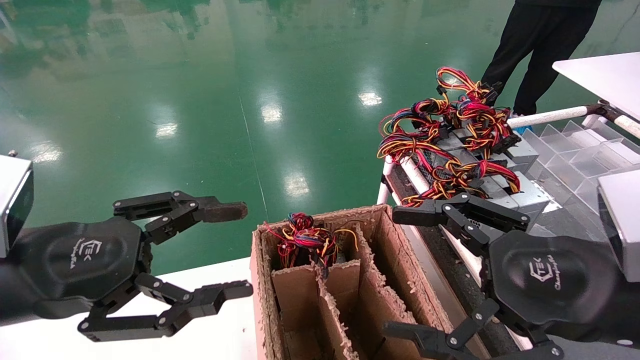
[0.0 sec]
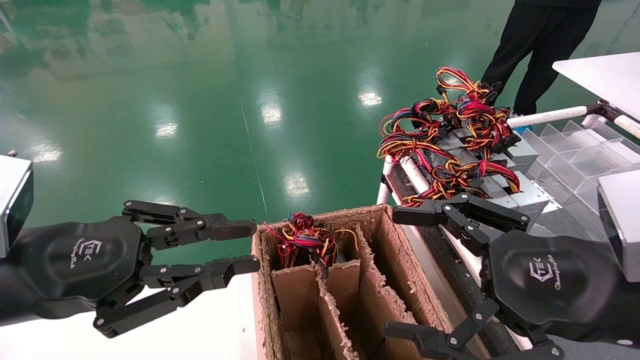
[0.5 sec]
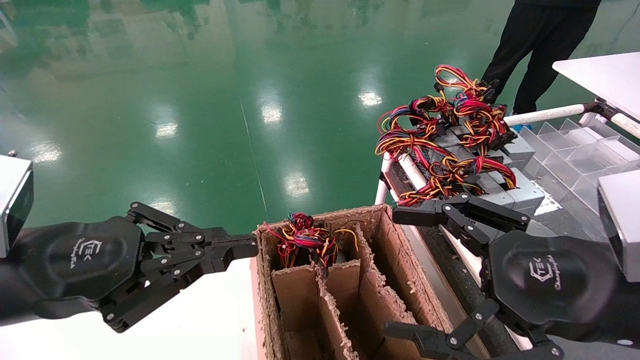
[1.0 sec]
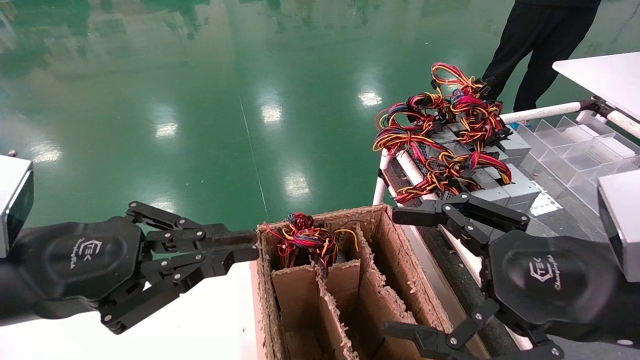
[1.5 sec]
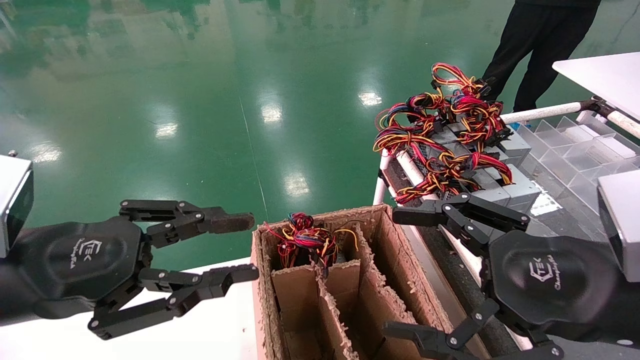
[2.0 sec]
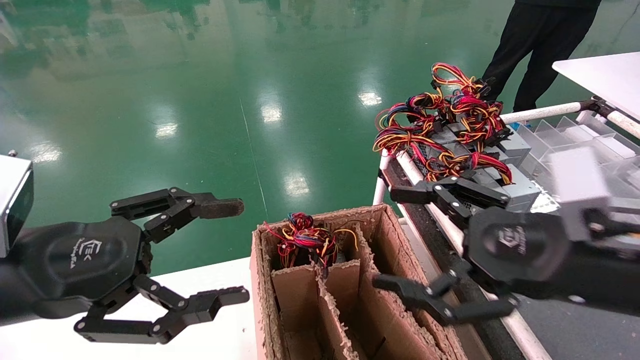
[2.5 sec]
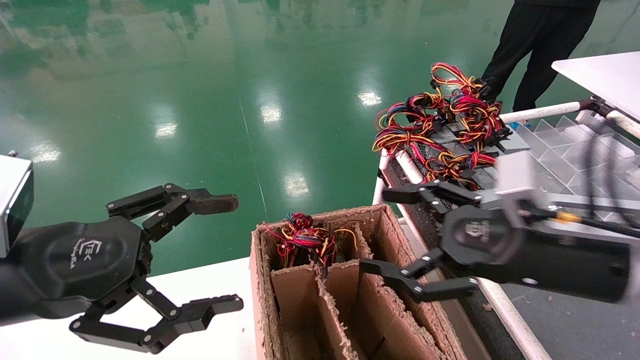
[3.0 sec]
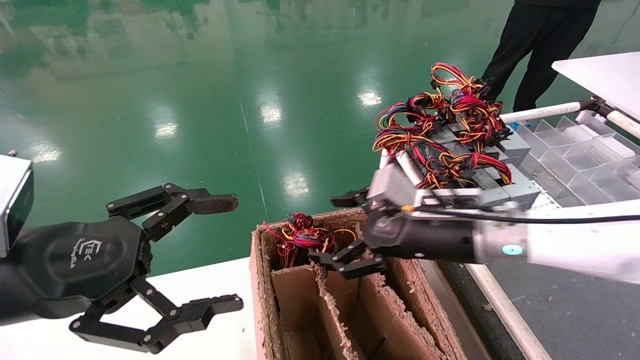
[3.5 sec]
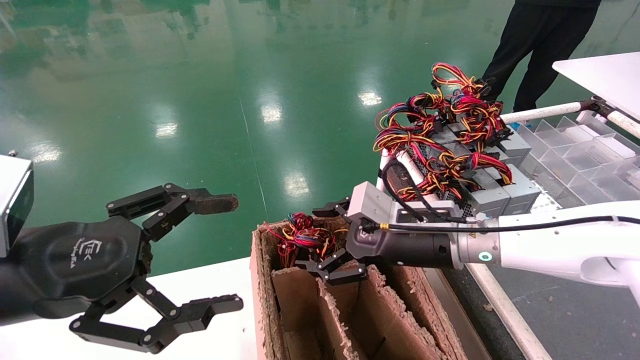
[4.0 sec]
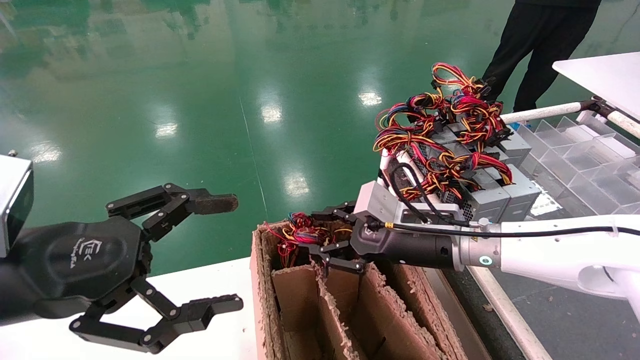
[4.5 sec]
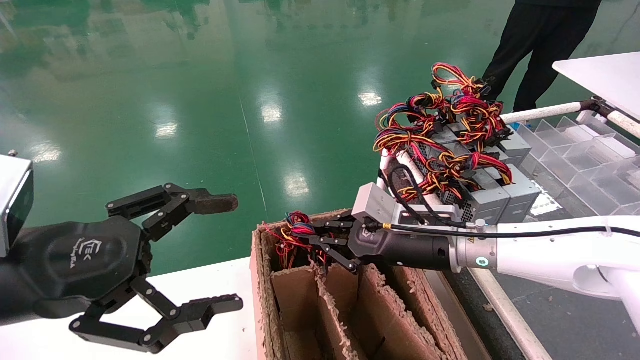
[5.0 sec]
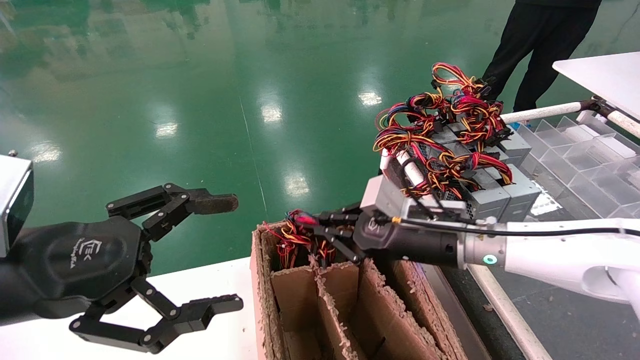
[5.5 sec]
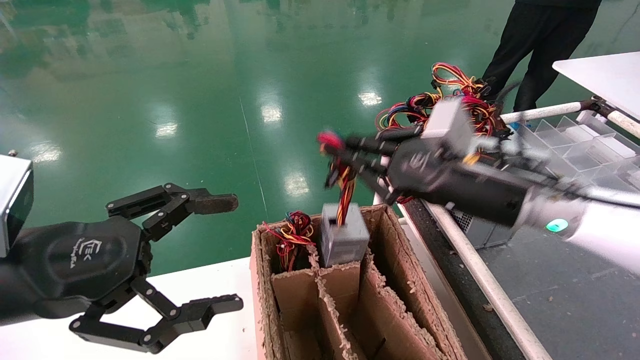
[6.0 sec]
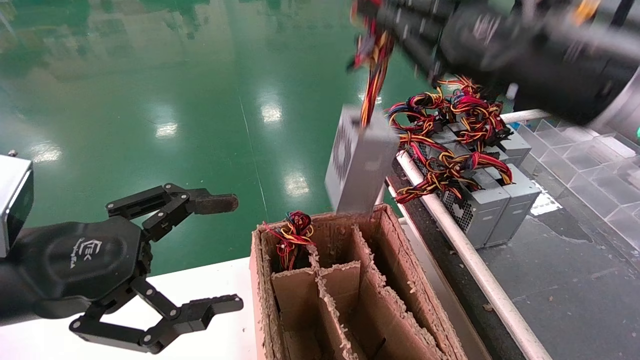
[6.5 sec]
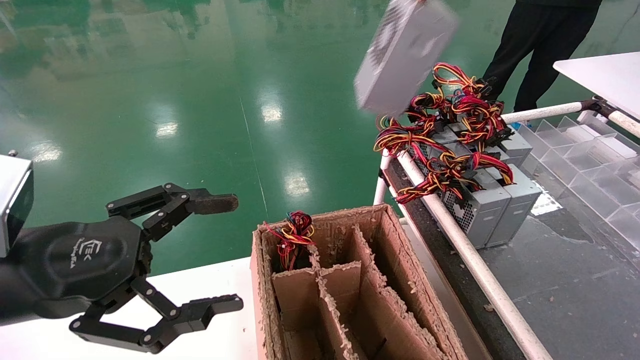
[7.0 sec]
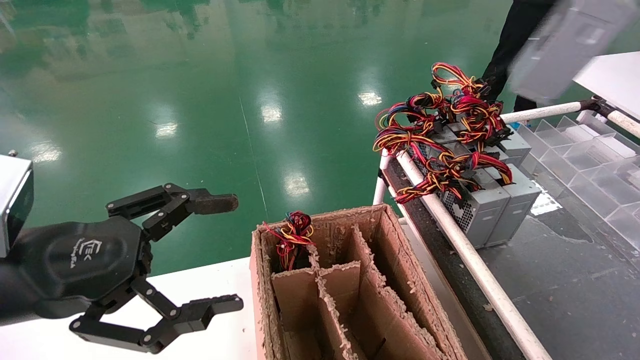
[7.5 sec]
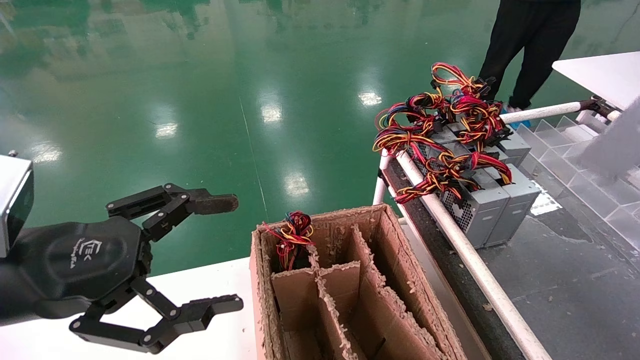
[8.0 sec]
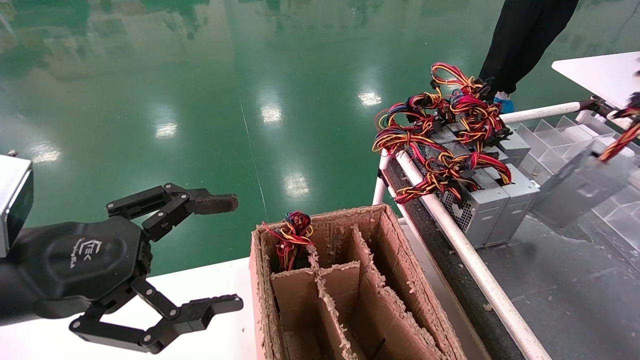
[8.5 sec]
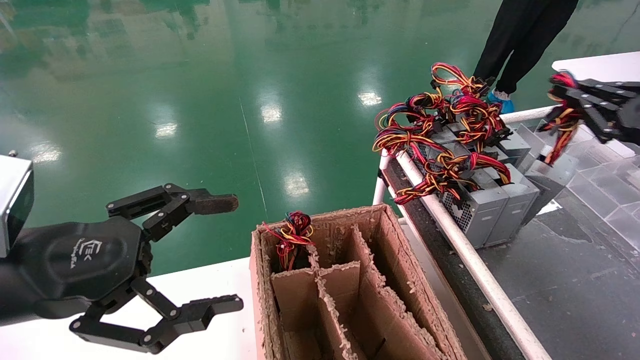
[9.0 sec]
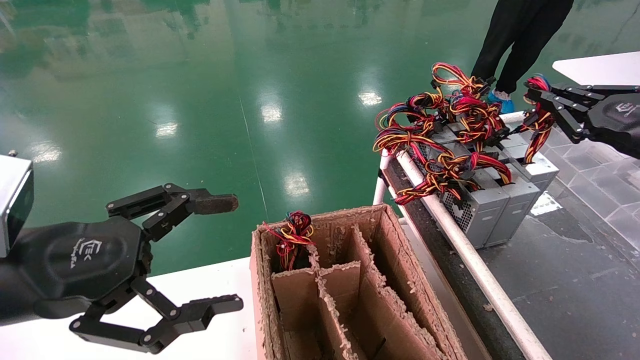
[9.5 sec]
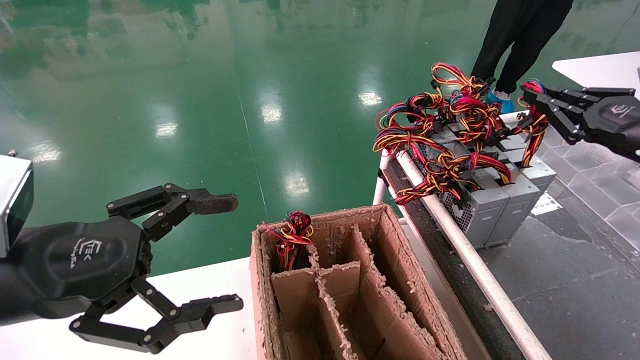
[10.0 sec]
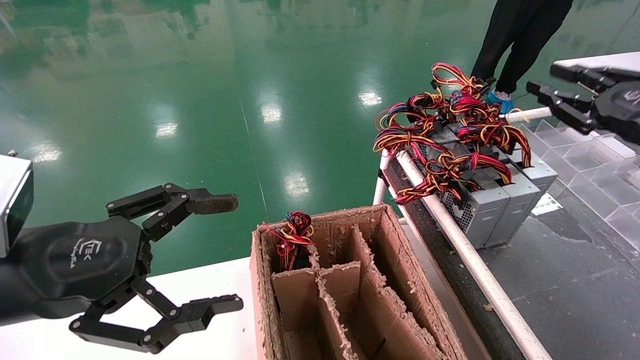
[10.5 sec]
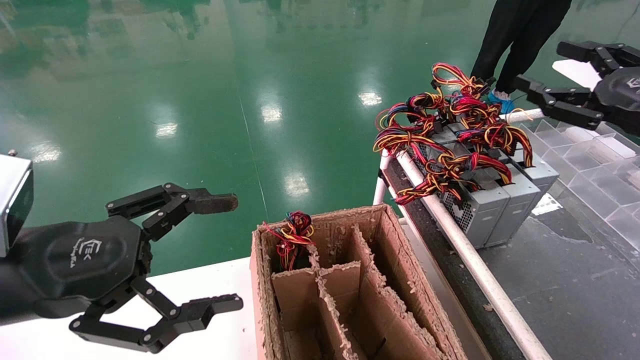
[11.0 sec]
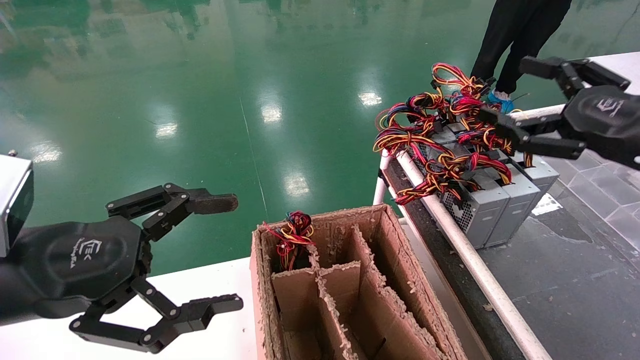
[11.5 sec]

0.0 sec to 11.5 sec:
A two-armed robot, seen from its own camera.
Step, 1.5 sec to 5.0 sec: Grab and lift the power supply from the large box.
Step, 5.5 sec to 10.0 sec: Place the power supply on the operating table.
0.0 sec to 2.0 sec: The left gripper closes its fingers.
2.0 sec to 4.0 sec: The left gripper opens, while the right gripper moves forward and to the left, about 20 cm.
4.0 sec to 6.0 sec: The right gripper travels upward by some 10 cm, and closes.
6.0 sec to 7.5 sec: The right gripper shifts some 30 cm to the right and upward.
7.5 sec to 9.5 sec: The right gripper goes approximately 20 cm downward and forward.
9.5 sec to 11.5 sec: The right gripper shifts roughly 5 cm to the left, and opens.

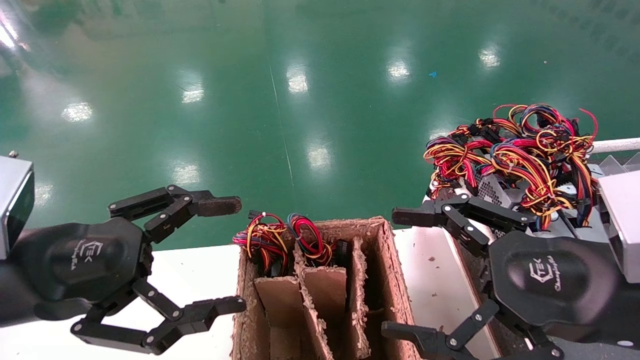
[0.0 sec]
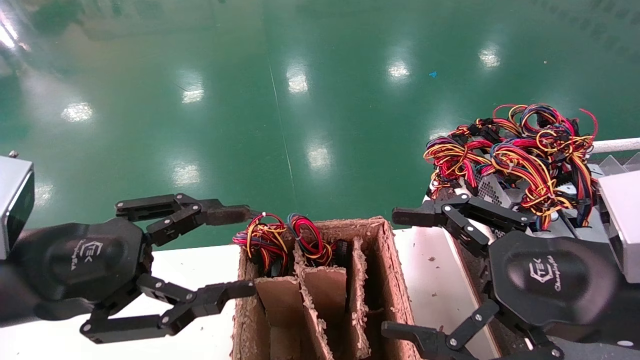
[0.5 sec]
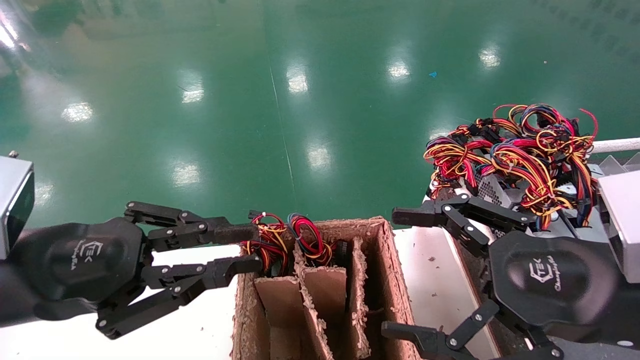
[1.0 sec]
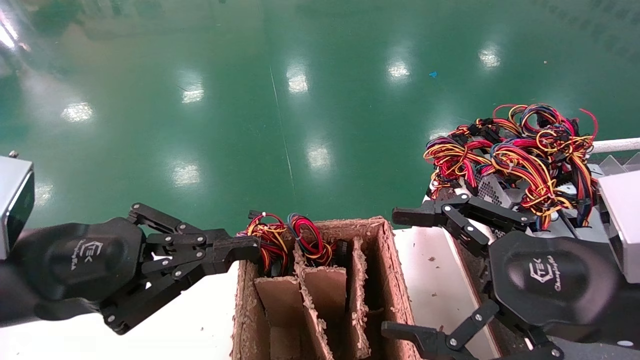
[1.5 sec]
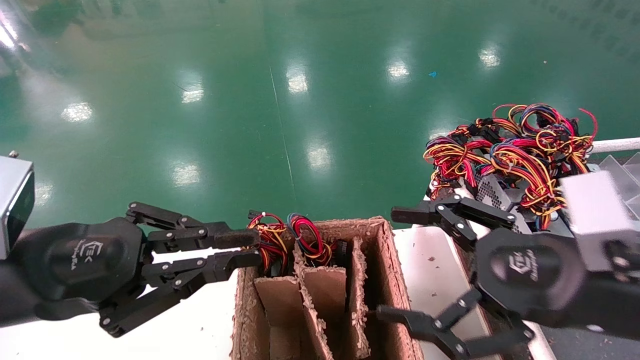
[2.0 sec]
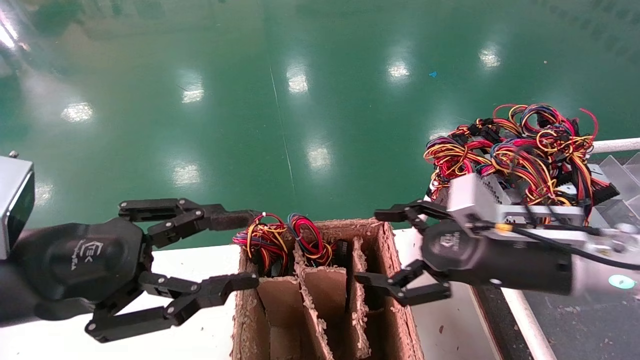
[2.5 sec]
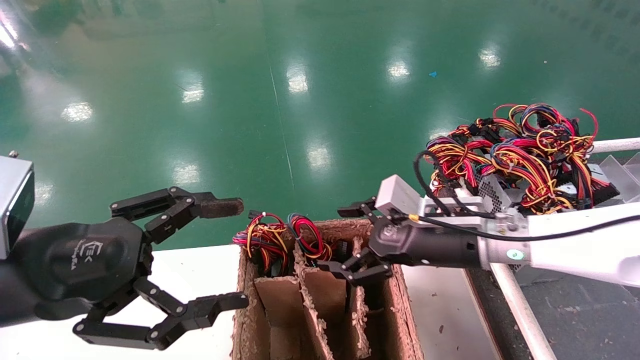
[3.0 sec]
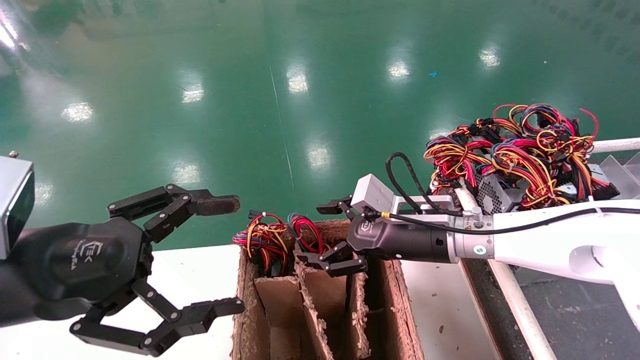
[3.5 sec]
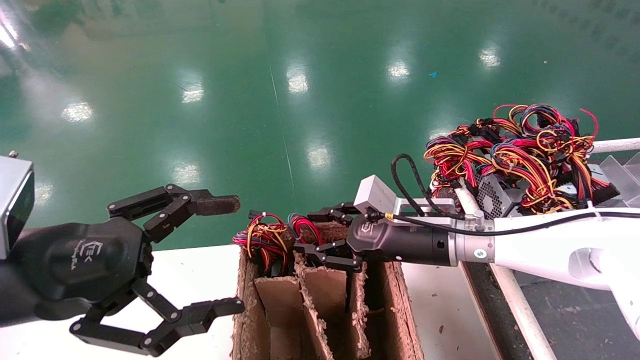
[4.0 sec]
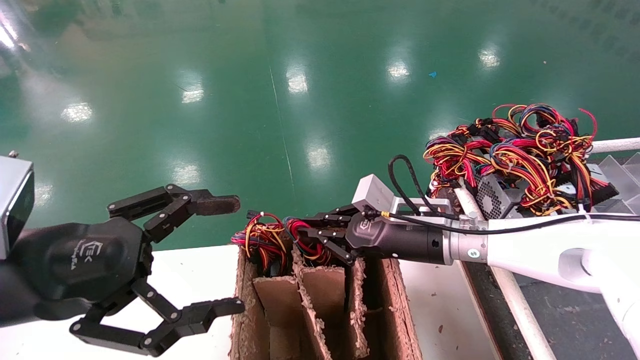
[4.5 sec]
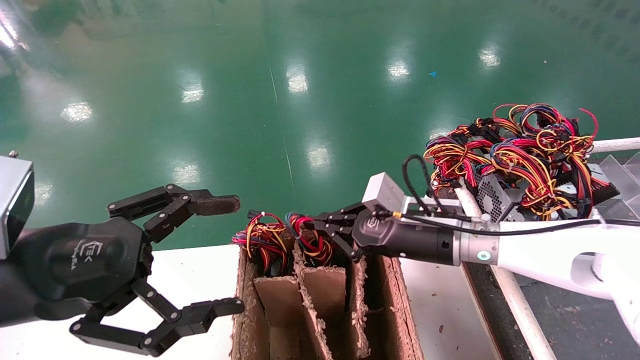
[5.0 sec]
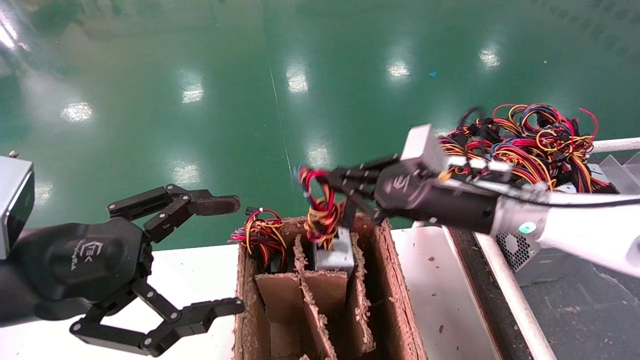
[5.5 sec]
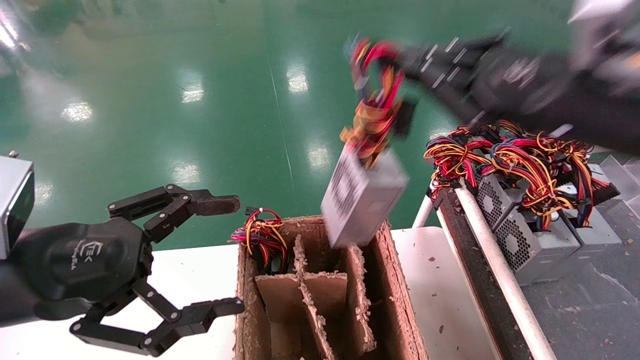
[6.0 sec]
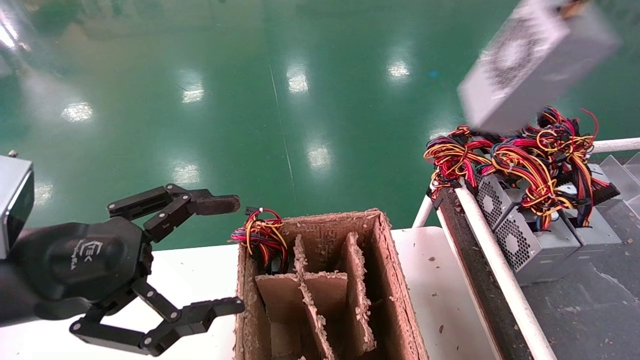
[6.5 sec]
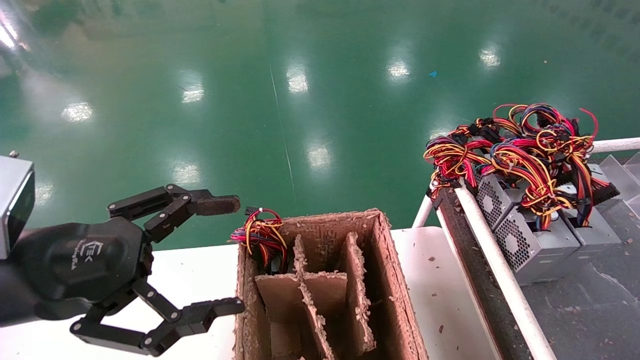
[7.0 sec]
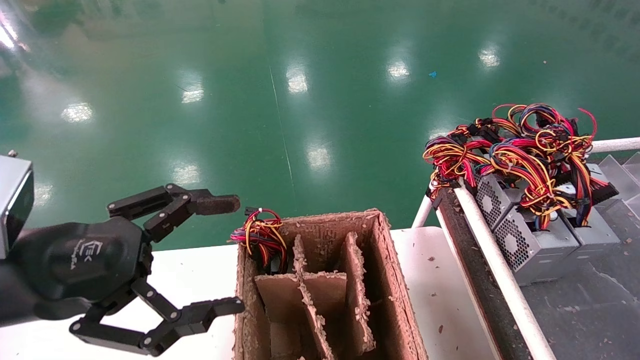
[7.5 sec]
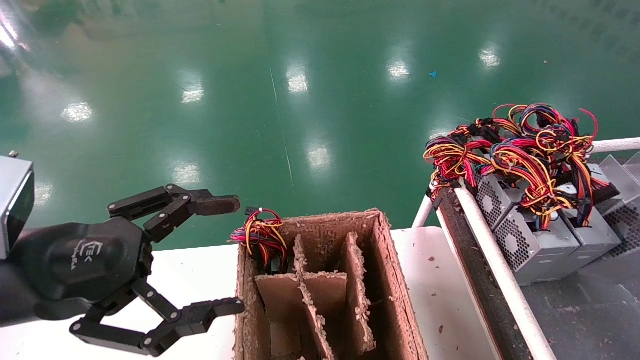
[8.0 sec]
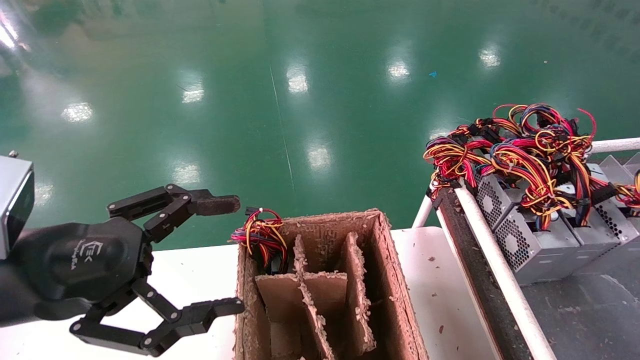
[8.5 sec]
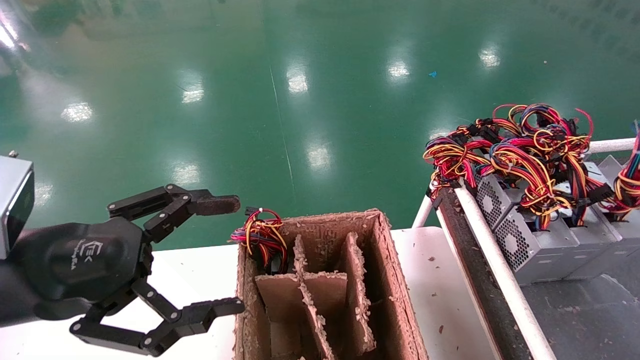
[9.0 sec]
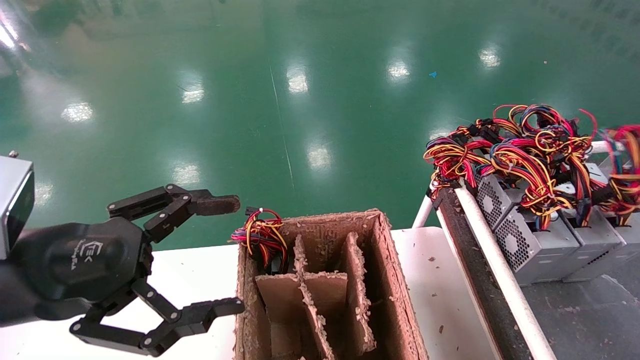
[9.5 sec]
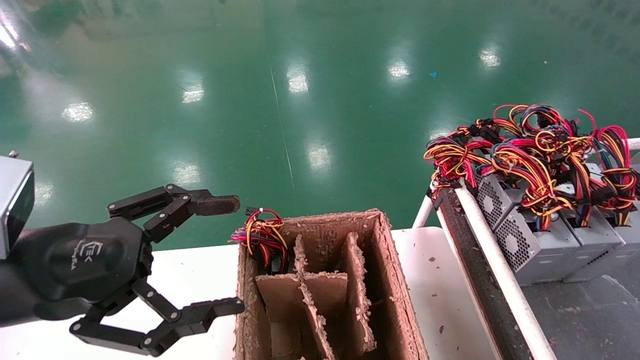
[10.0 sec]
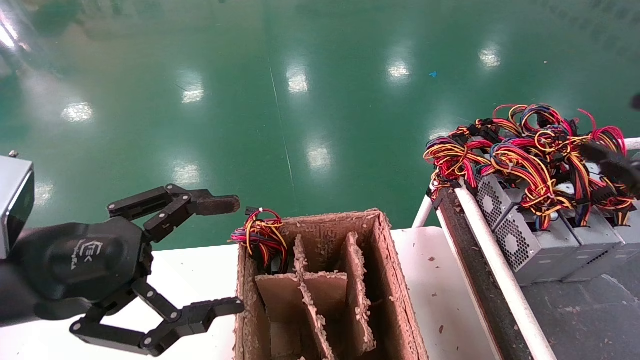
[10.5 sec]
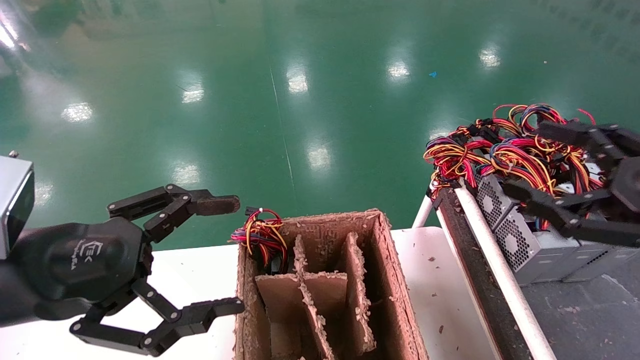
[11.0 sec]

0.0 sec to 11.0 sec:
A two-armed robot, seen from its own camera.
Step, 2.5 sec to 4.5 sec: Grab and lift the power supply from the large box.
Step, 5.0 sec to 9.0 sec: Place the power supply on the operating table.
0.0 sec to 2.0 sec: The left gripper closes its fingers.
2.0 sec to 3.5 sec: The left gripper opens its fingers; the right gripper moves forward and to the left, about 20 cm.
3.5 sec to 5.5 sec: The right gripper shifts approximately 5 cm upward, and closes up.
5.5 sec to 7.5 sec: The right gripper moves to the right and backward, about 50 cm.
7.5 sec to 9.0 sec: The right gripper heads forward and to the left, covering roughly 10 cm.
9.0 sec to 11.0 sec: The right gripper heads to the left, covering roughly 15 cm, and opens.
